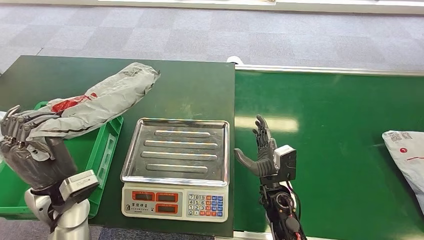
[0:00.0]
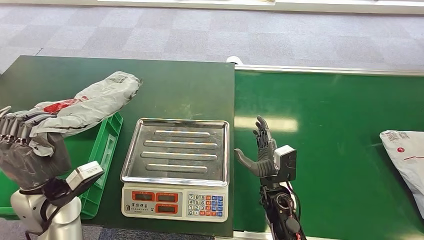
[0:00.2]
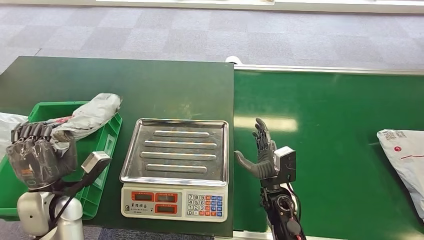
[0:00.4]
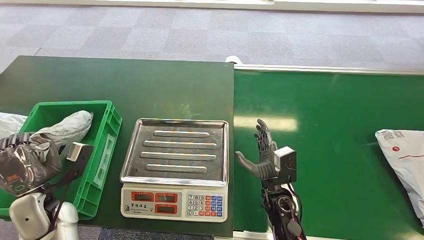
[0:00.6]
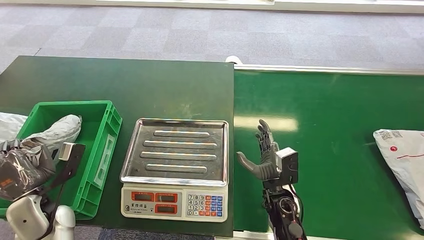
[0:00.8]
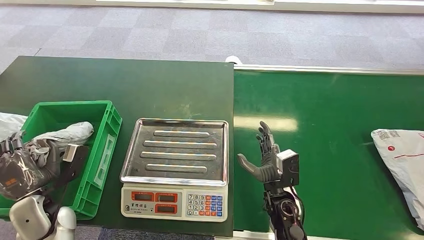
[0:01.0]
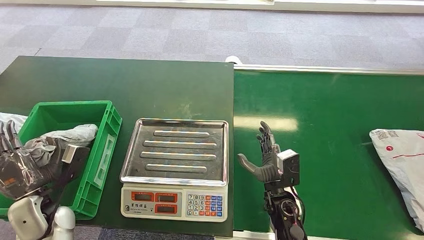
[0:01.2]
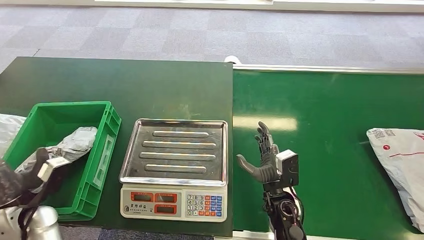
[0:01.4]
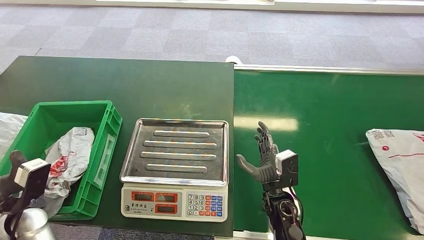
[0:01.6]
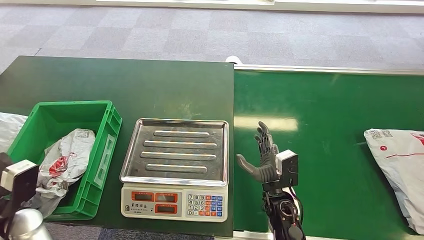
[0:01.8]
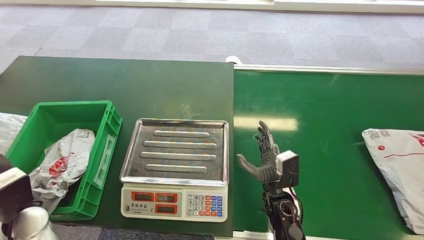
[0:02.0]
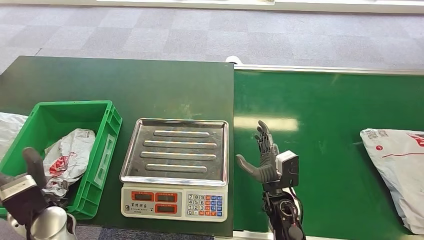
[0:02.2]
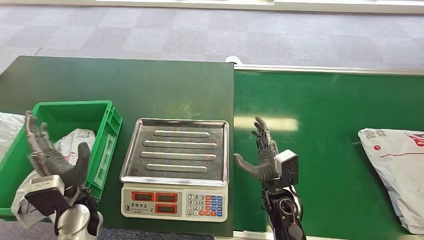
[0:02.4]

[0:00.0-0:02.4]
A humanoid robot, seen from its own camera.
Step, 0:00.0 to 0:02.2: Place the package into the parcel locker.
0:00.0 to 0:01.2: The left hand is displaced to the left and downward by approximately 10 cm.
0:01.2 to 0:02.4: The left hand shifts some 10 cm to the right.
